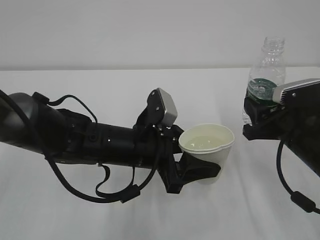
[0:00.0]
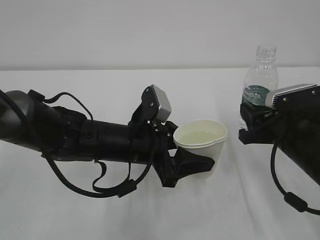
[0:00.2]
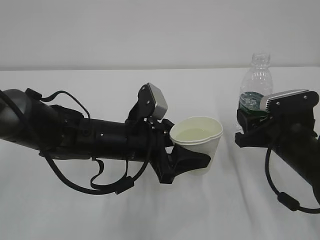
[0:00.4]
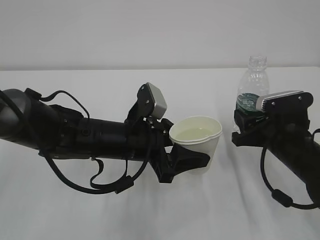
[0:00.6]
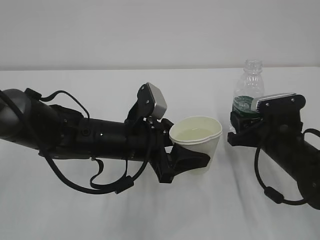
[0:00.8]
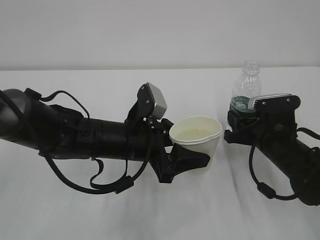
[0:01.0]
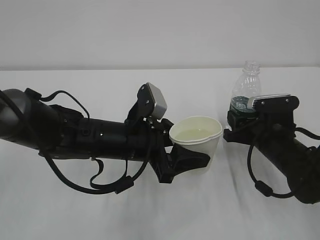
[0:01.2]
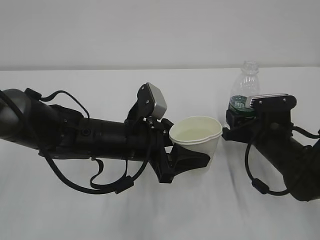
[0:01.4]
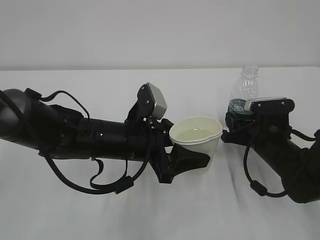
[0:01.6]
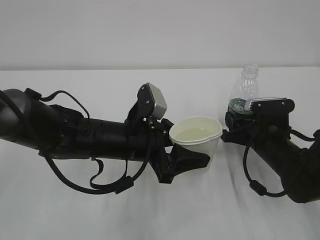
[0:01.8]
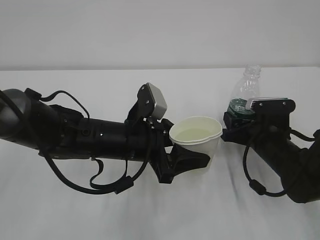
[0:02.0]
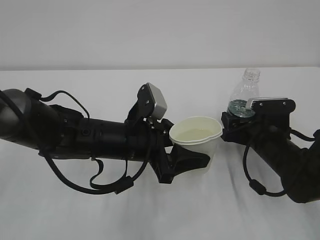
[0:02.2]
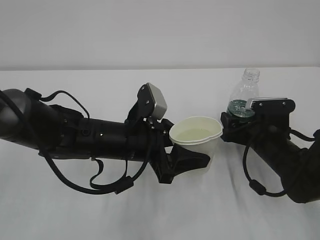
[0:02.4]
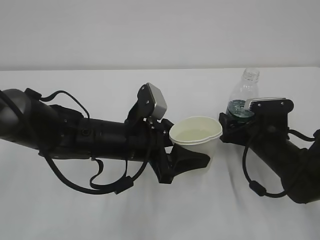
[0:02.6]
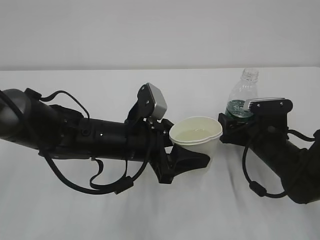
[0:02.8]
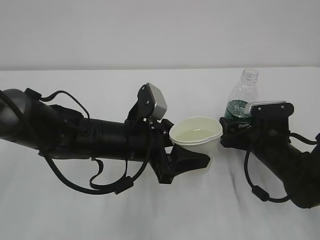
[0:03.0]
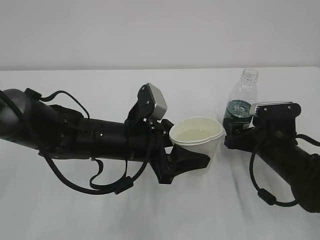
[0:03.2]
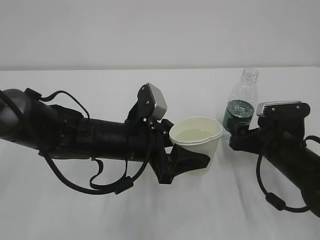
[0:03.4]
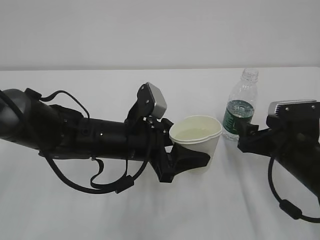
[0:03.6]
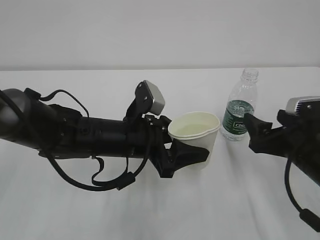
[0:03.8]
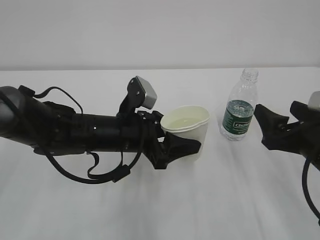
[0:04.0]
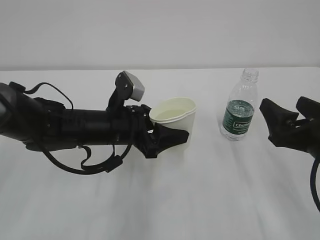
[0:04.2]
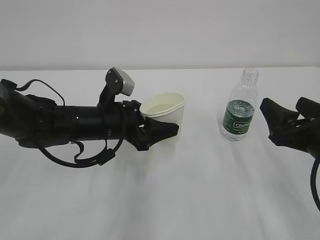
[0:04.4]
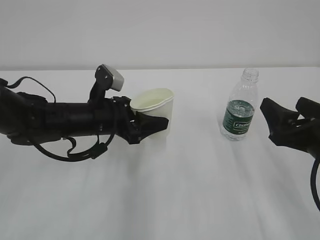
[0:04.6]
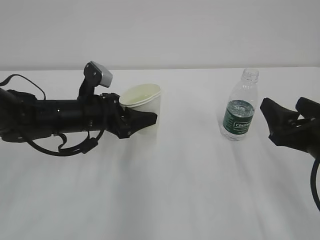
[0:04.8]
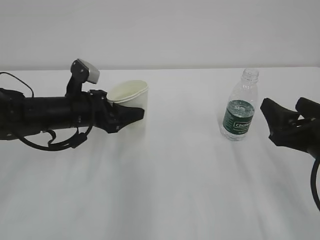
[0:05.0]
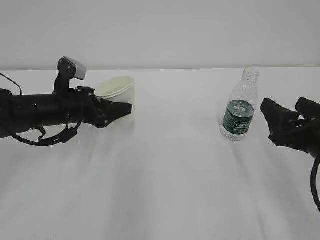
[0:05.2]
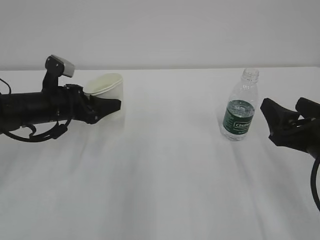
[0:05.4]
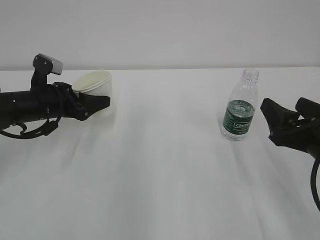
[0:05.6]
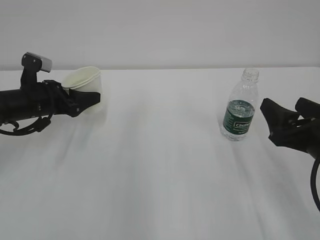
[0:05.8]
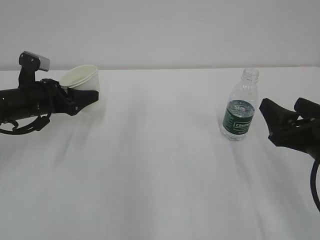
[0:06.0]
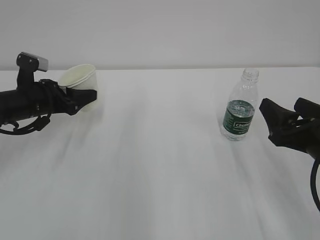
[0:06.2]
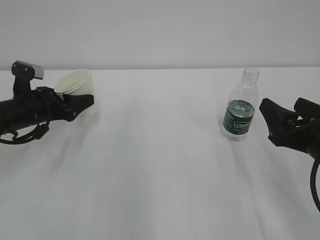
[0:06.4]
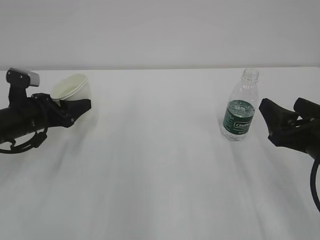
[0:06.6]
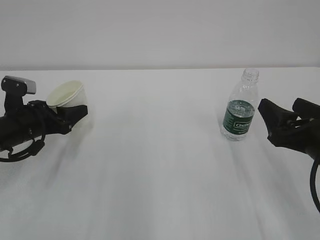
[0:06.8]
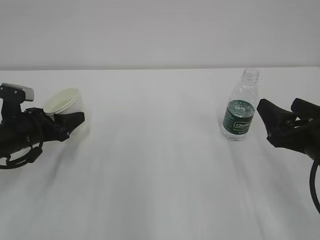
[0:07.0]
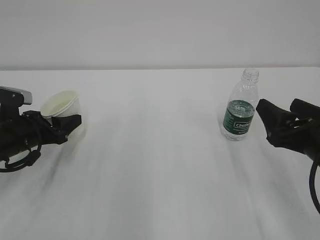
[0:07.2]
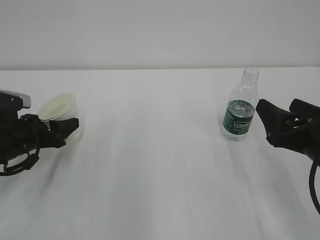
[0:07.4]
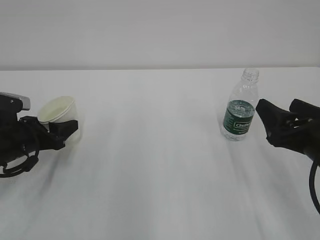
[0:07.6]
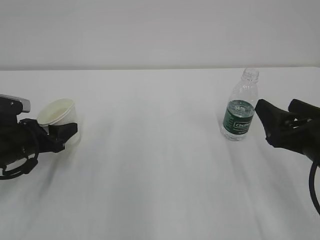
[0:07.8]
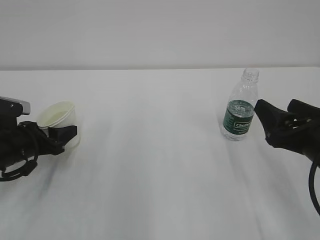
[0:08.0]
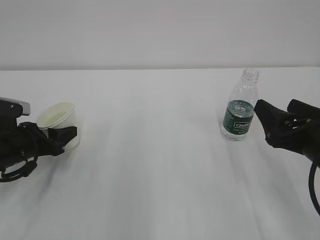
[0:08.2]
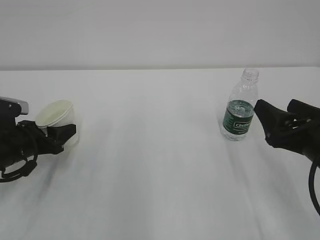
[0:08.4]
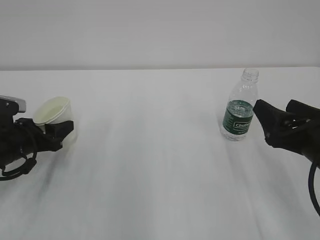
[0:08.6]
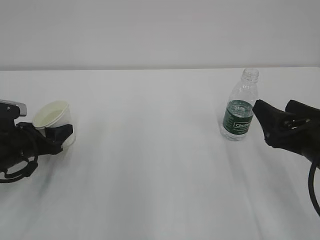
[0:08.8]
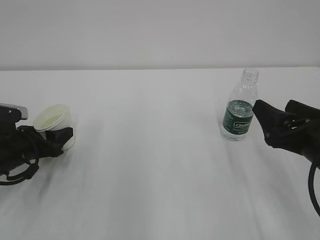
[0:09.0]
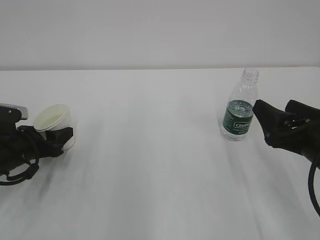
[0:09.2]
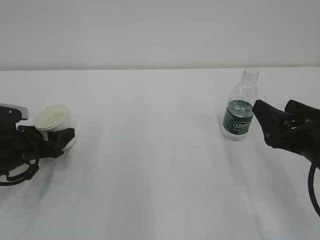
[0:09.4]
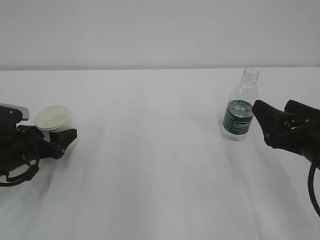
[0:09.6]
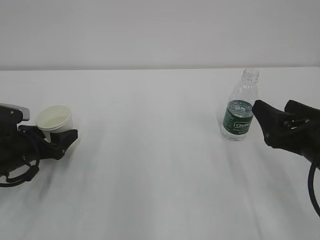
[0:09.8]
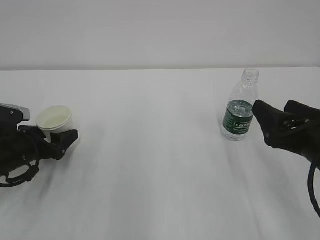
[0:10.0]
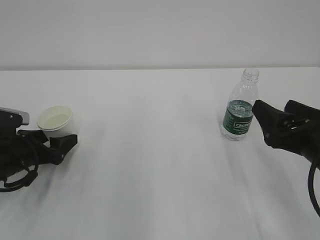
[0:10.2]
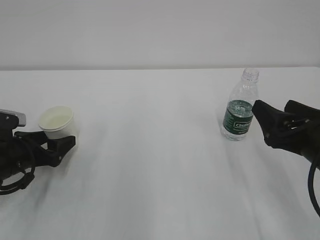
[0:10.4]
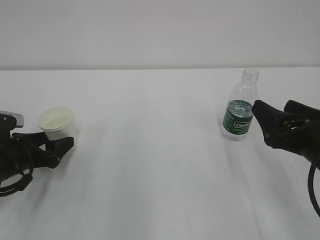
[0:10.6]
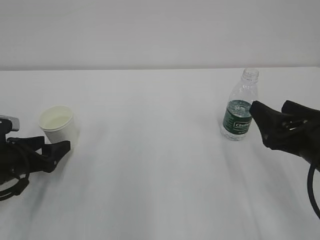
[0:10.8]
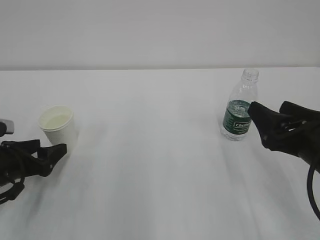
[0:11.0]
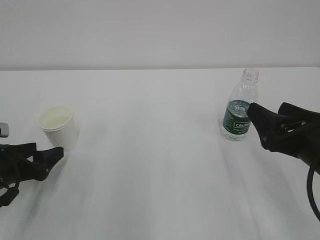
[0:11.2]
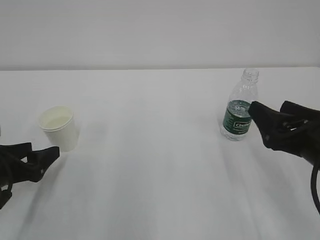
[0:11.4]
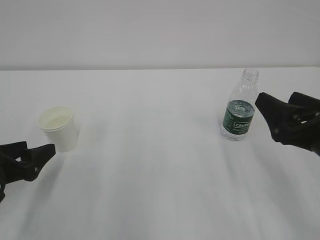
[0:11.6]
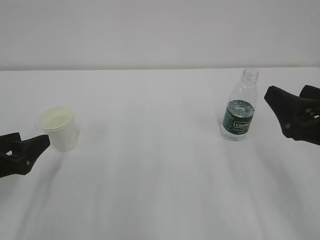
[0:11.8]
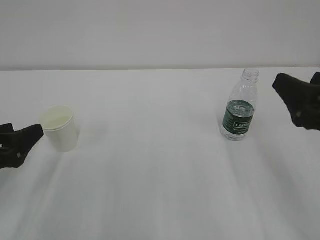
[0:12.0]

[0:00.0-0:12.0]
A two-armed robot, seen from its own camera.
0:00.0 to 0:01.6: The right gripper shifts roughly 10 cm downward and forward.
0:01.6 to 0:03.0: The right gripper opens up.
0:03.0 to 0:04.4: The right gripper shifts roughly 15 cm backward and upward; the left gripper ends up about 5 cm from where it was.
0:04.4 to 0:06.0: The left gripper heads to the left, covering some 15 cm.
0:06.0 to 0:07.6: The left gripper is displaced backward by approximately 5 cm.
0:07.6 to 0:09.0: The grippers make only small movements.
0:09.0 to 0:10.4: The left gripper opens its fingers.
0:10.4 to 0:12.0: The right gripper goes roughly 5 cm upward, while the left gripper moves backward and upward, approximately 10 cm.

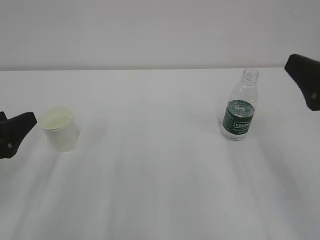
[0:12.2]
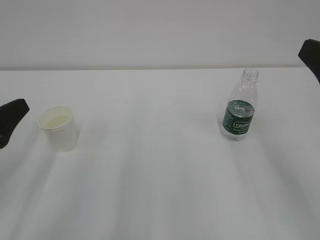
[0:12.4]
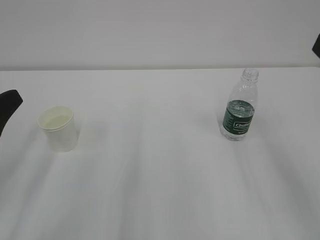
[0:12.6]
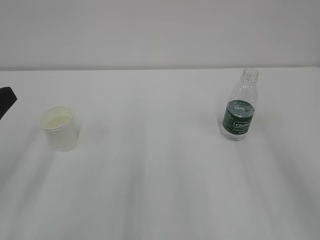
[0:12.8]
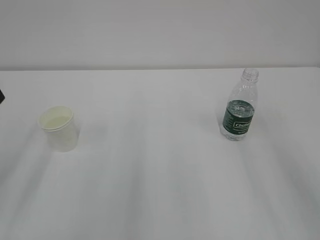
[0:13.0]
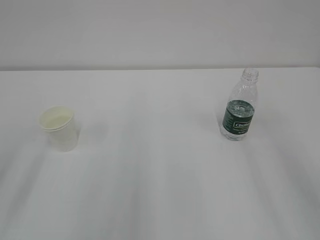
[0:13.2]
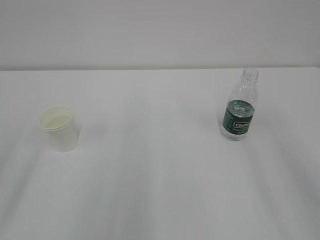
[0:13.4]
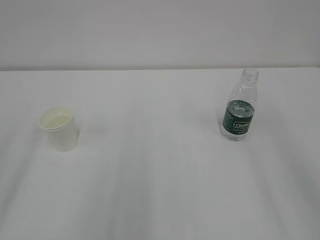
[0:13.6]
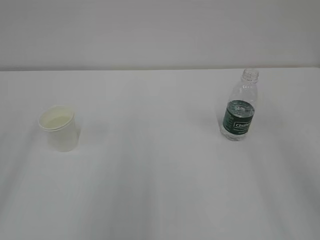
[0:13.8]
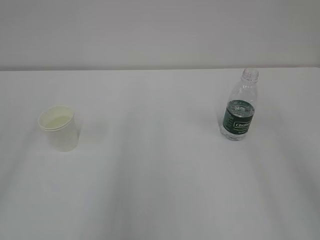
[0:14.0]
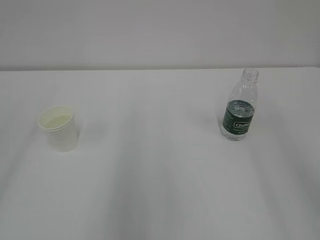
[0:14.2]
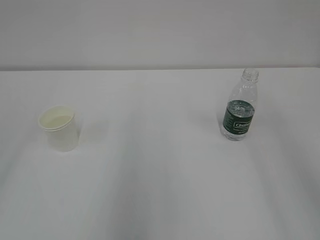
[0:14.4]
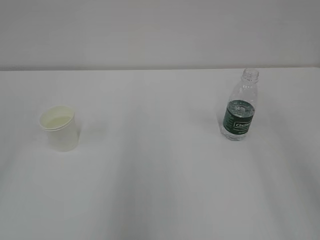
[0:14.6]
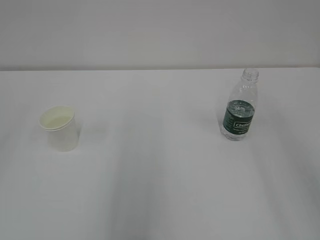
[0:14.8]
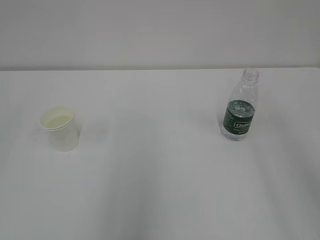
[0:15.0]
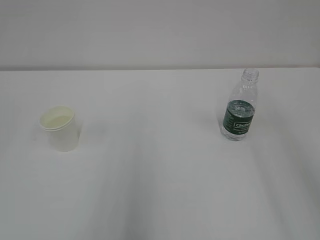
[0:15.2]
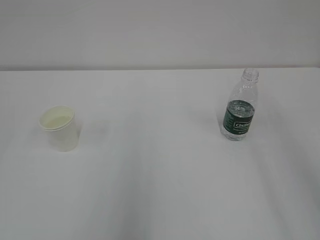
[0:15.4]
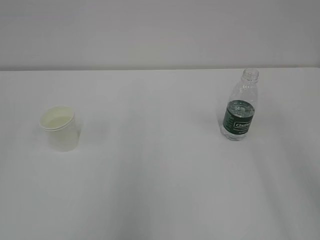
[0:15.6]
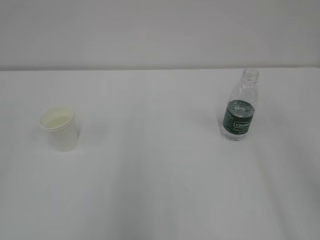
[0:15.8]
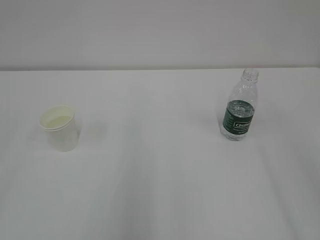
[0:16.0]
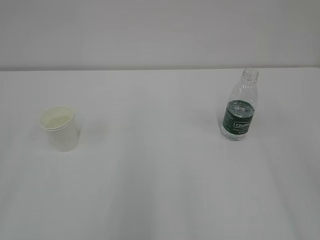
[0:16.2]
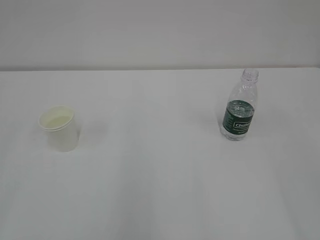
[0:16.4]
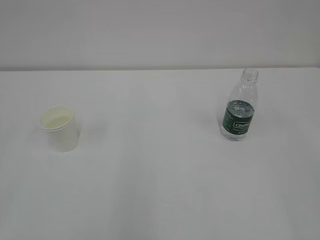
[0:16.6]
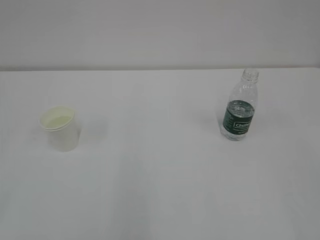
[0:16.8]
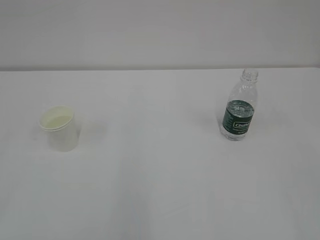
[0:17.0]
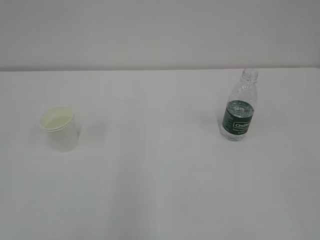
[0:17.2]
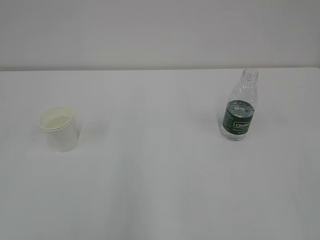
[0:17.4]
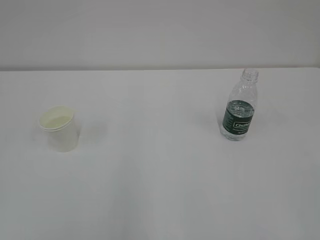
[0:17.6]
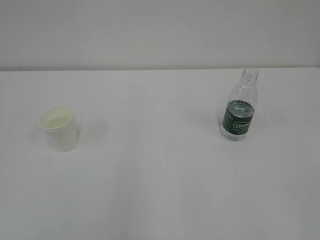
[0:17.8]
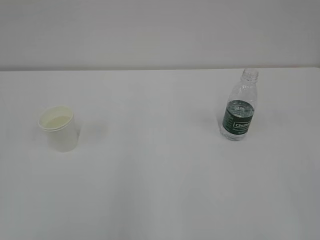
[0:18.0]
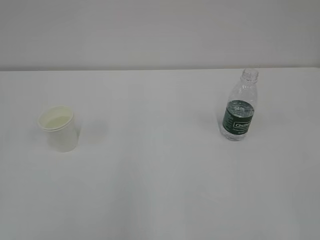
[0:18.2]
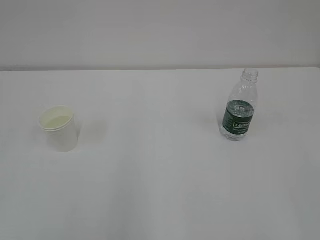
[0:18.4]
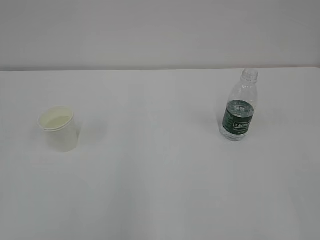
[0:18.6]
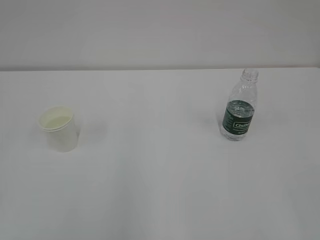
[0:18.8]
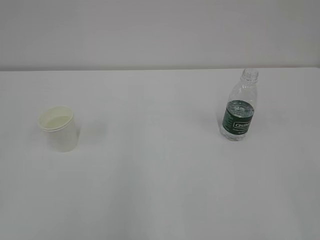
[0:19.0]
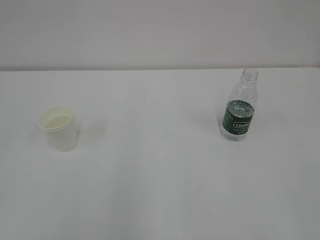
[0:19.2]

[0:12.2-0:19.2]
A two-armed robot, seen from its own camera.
0:12.2 to 0:13.6: The two grippers go approximately 15 cm upward and backward.

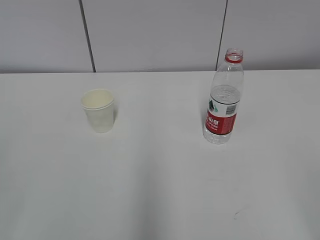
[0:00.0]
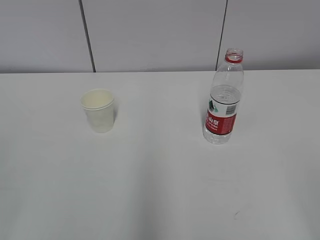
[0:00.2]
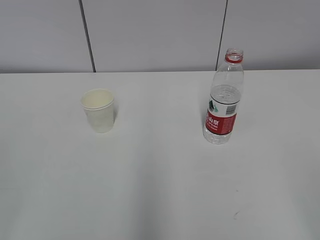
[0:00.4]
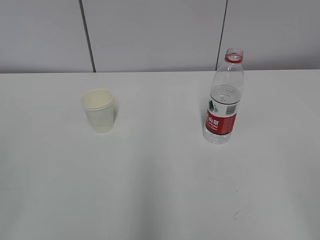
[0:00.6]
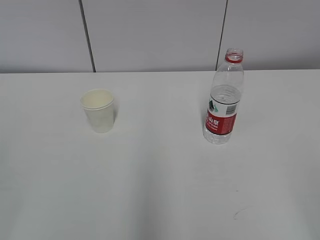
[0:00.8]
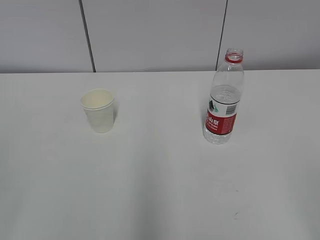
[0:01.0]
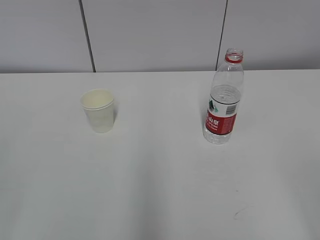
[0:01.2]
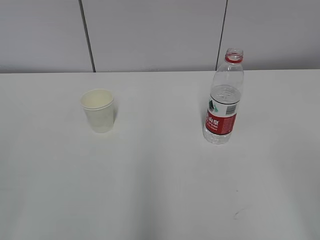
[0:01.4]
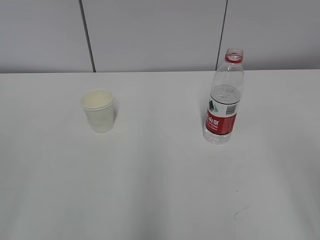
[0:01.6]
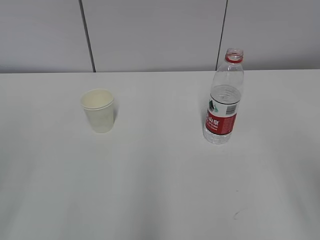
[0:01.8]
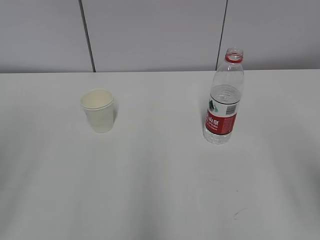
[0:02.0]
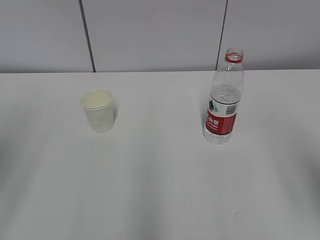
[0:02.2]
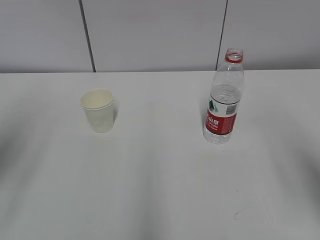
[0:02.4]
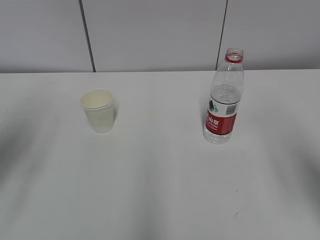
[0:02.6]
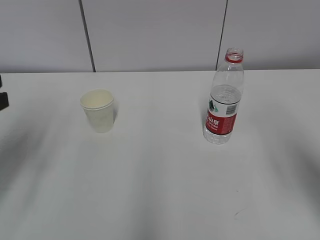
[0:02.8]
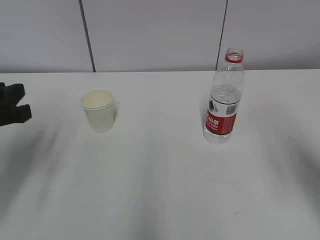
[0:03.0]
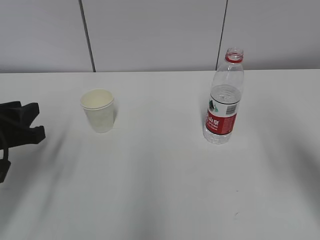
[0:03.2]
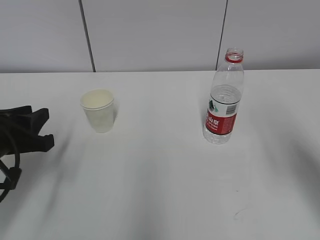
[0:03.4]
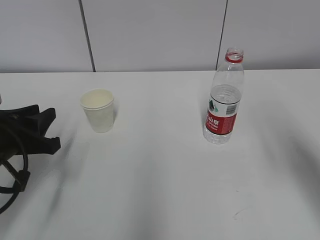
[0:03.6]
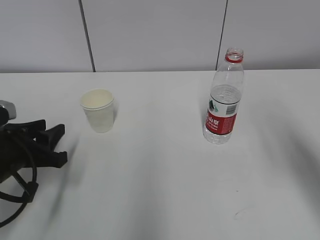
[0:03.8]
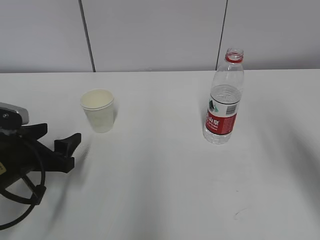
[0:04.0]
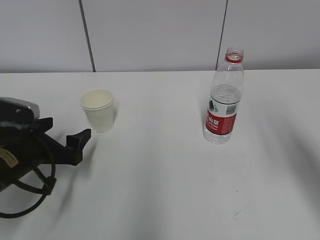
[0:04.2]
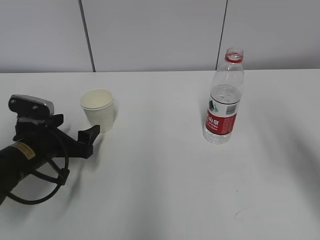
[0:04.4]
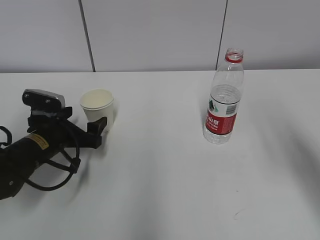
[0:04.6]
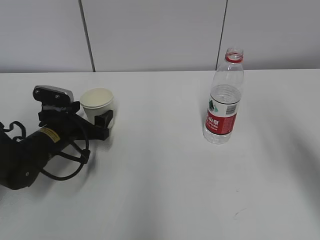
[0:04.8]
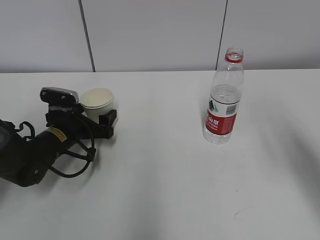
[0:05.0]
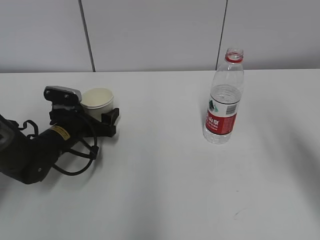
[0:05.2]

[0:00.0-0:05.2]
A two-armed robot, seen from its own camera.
Step, 0:00.0 to 0:04.8: Grab the paper cup with the left hand.
0:01.8 to 0:03.4: The left gripper is displaced forward and downward by roughly 25 cm.
0:03.4 to 0:05.2: The left gripper heads forward and downward, covering some 20 cm, and opens.
